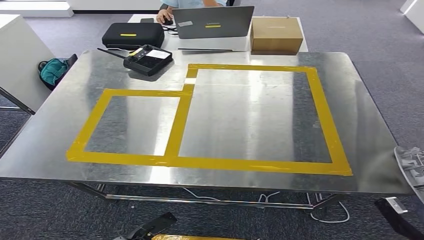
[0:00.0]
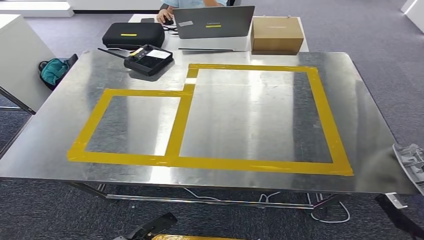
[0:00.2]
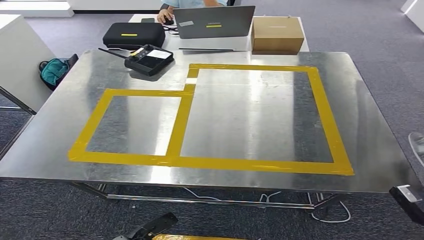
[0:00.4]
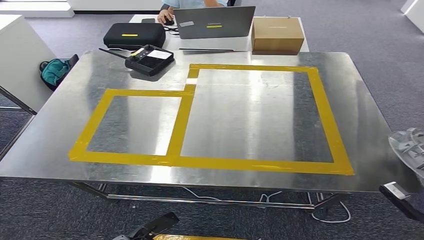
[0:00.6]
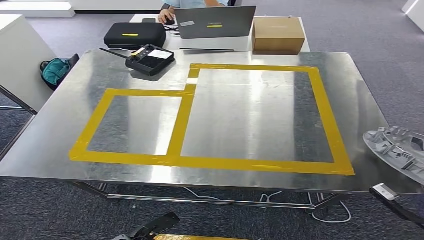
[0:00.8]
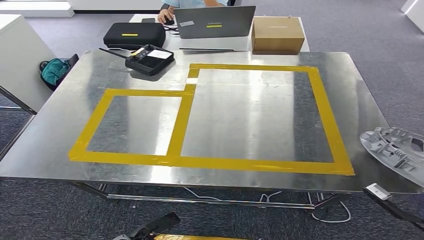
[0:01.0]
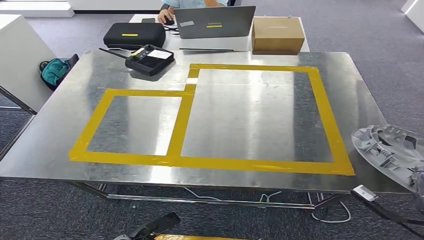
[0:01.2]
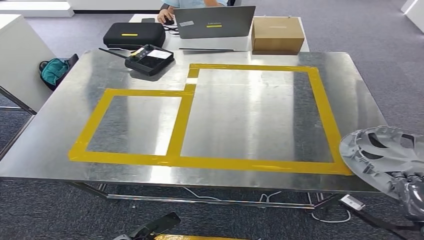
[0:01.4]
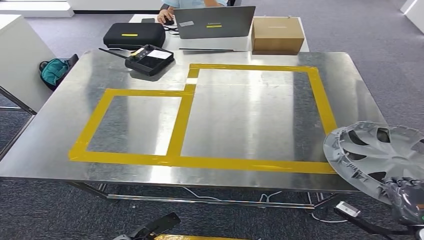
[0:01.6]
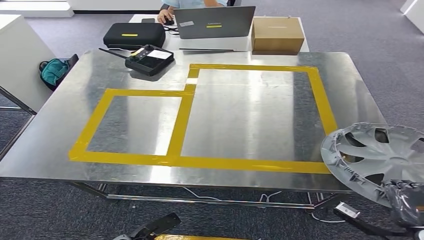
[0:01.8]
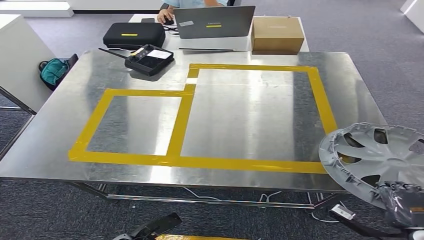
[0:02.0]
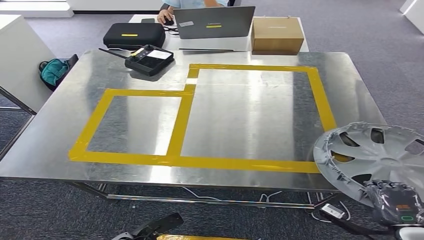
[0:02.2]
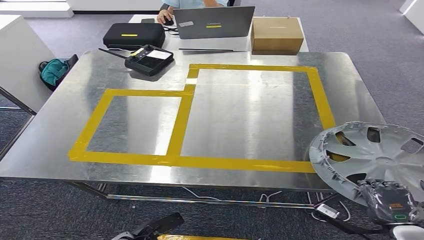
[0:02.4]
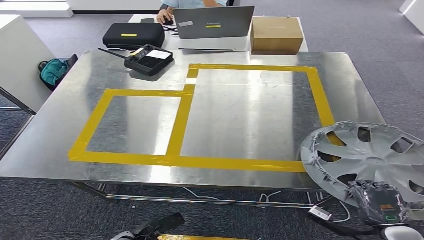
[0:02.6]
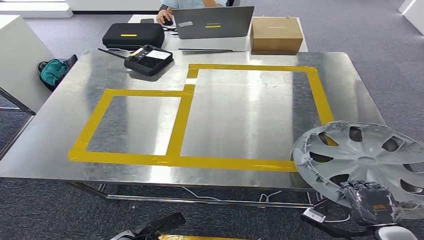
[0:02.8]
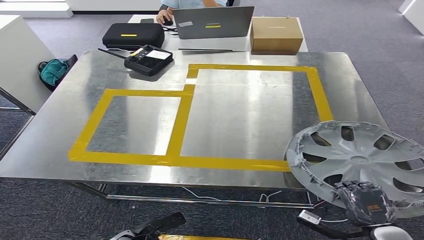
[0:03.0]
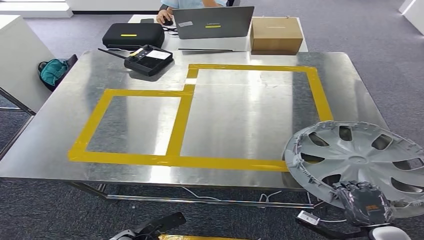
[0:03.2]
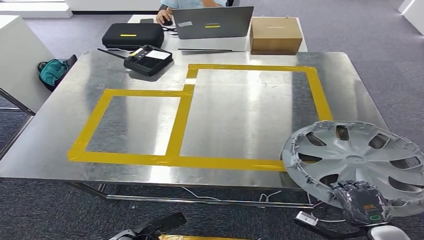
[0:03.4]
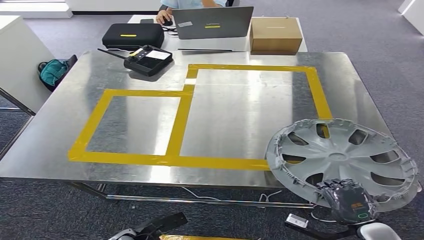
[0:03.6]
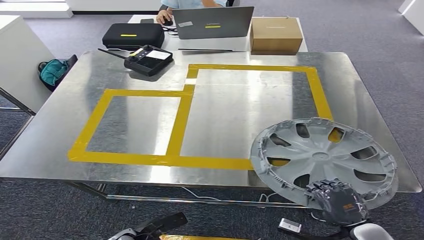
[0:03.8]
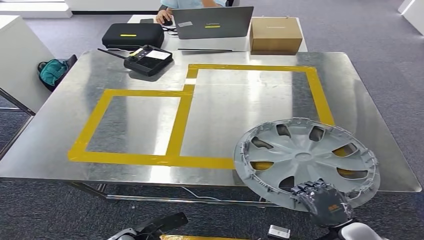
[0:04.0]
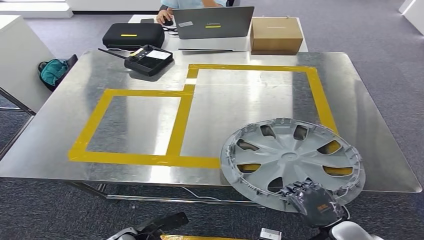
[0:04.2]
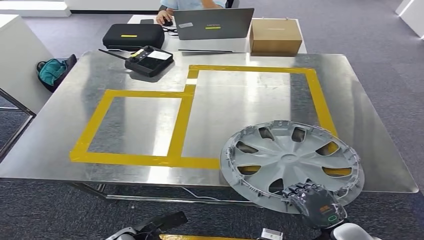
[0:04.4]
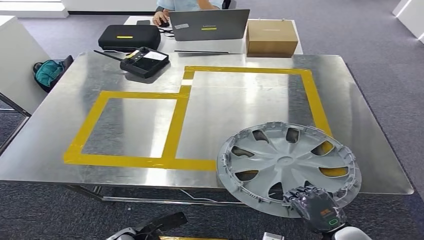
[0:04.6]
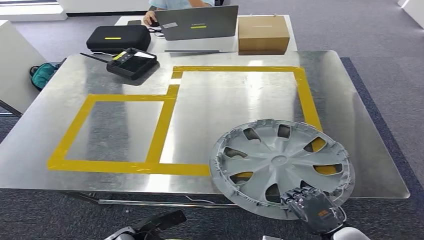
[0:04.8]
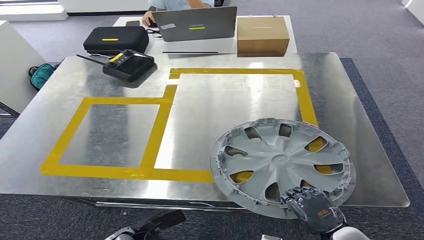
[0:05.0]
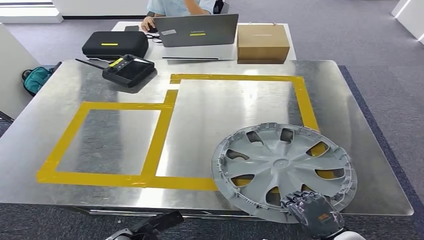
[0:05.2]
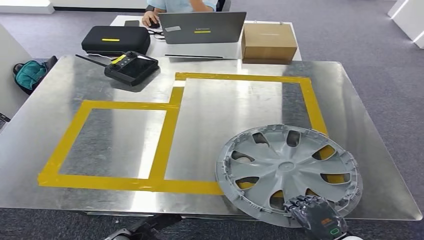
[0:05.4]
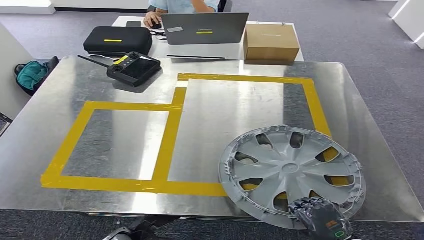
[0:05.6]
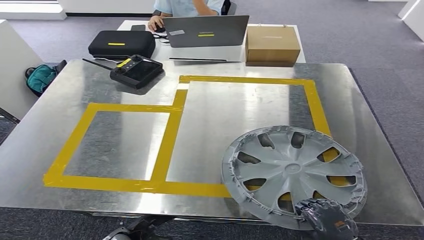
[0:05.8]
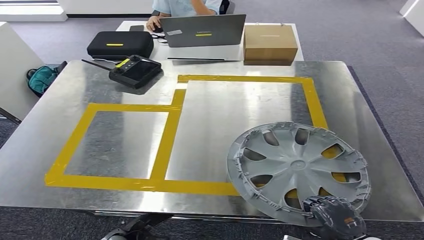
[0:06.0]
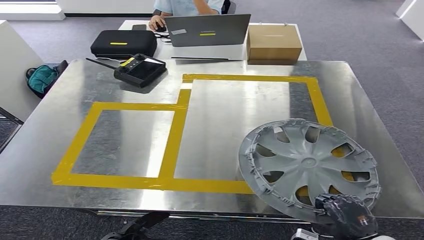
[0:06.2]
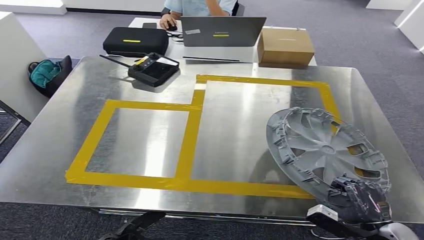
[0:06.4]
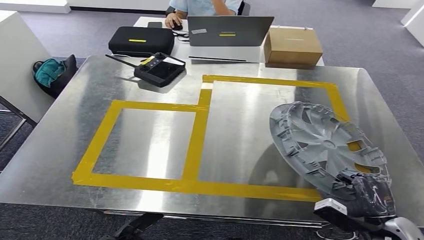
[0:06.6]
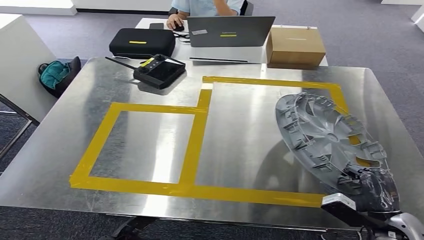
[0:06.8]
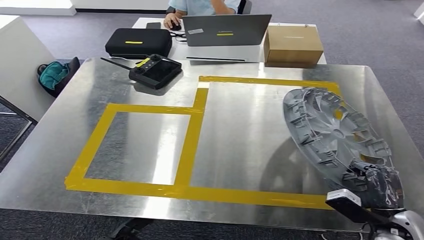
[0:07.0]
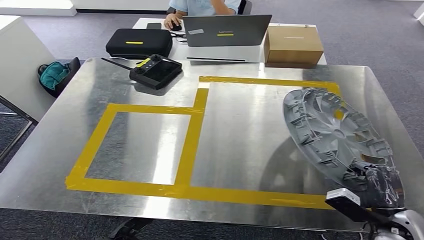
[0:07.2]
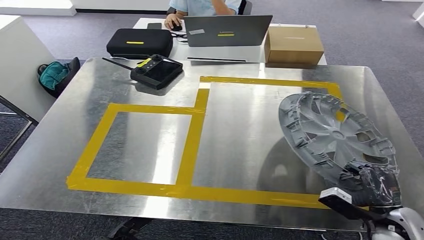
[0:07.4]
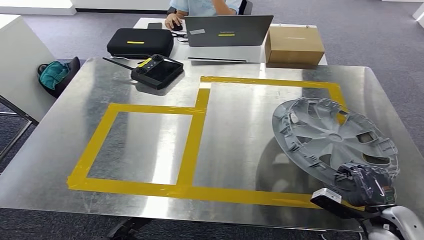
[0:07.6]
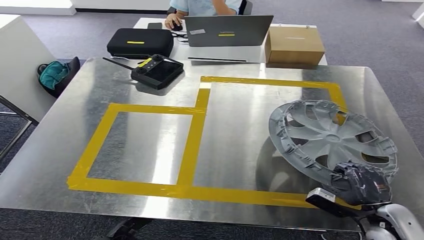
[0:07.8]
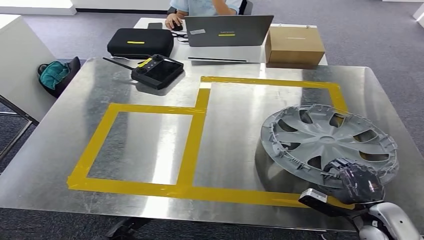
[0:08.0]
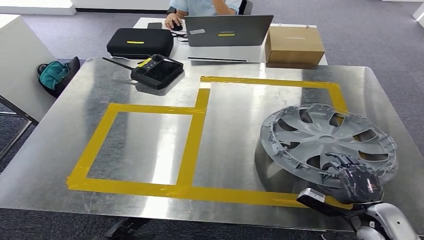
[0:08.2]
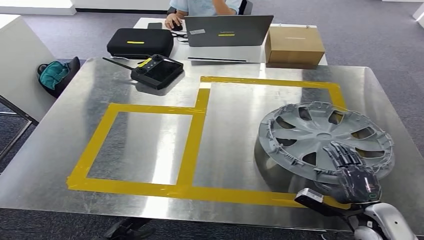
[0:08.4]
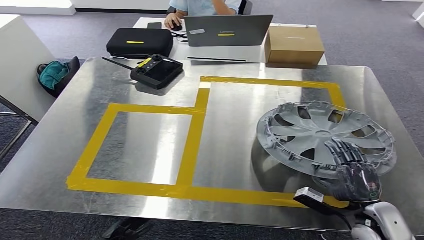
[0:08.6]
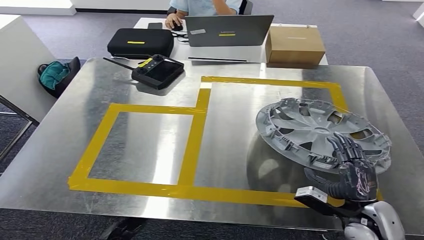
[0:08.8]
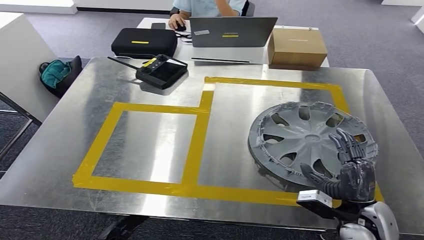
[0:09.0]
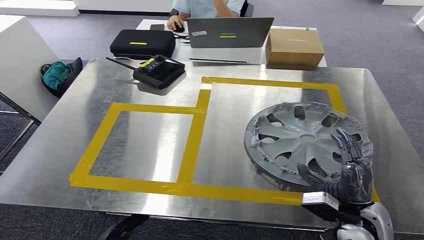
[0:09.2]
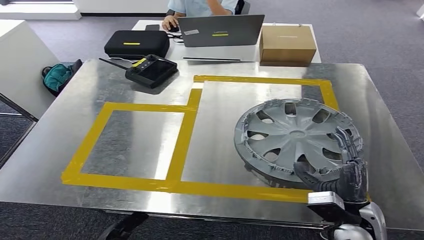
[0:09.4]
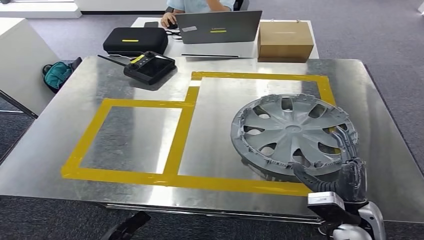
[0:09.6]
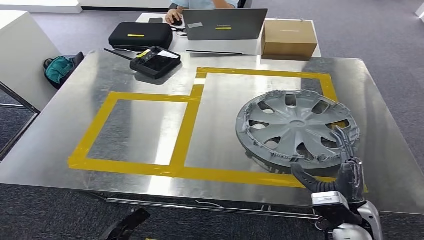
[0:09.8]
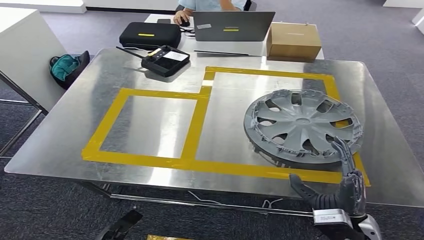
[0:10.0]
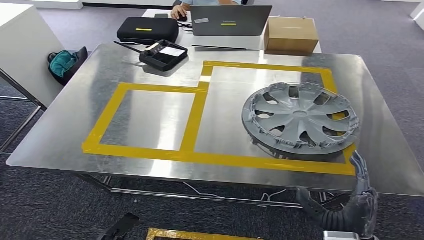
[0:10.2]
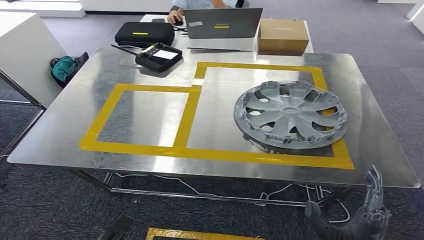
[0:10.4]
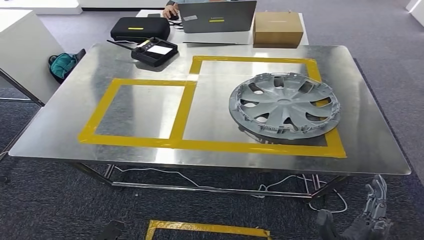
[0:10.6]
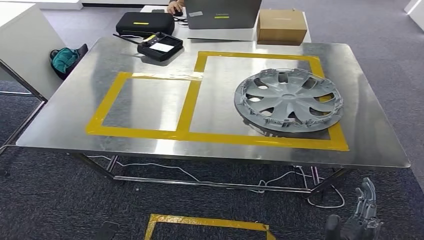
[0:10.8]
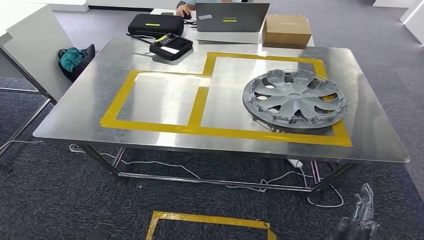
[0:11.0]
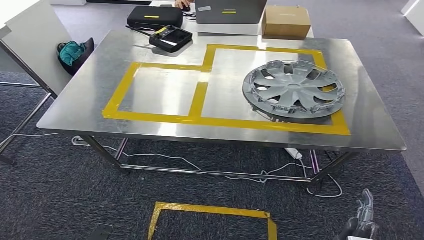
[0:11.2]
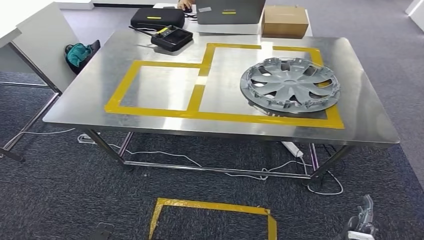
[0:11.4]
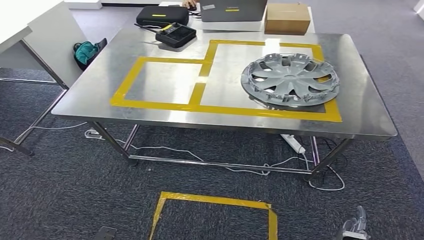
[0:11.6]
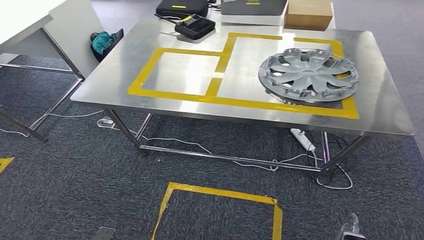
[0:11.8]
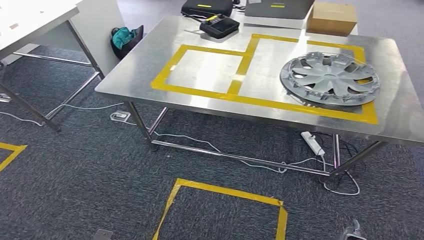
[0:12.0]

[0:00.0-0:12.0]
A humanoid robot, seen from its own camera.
Step, 0:00.0 to 0:10.4: Insert the small component into the corresponding slot on the workbench.
0:01.6 to 0:03.0: The right hand goes roughly 5 cm to the left.
0:03.0 to 0:04.4: The right hand shifts about 5 cm to the left.

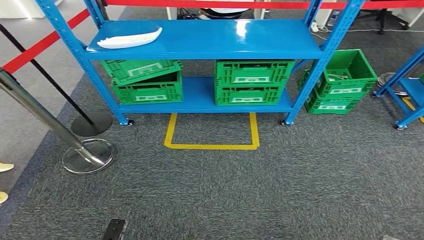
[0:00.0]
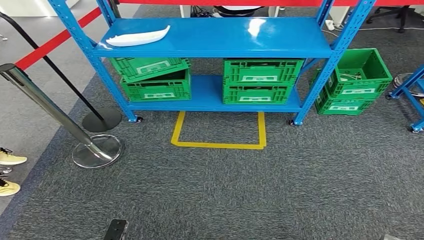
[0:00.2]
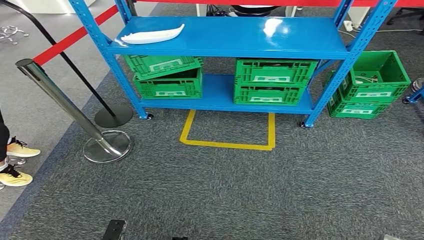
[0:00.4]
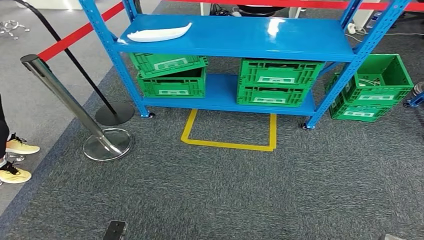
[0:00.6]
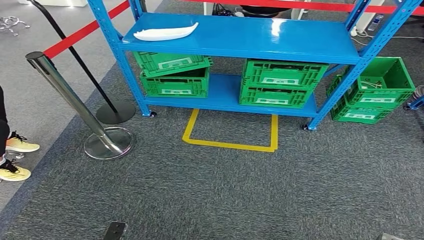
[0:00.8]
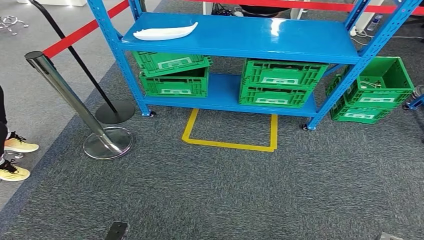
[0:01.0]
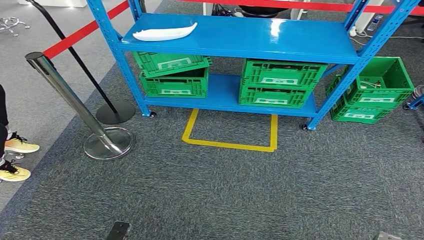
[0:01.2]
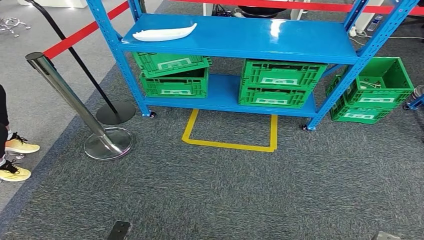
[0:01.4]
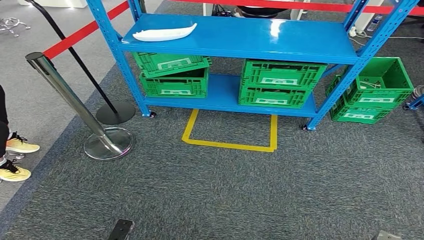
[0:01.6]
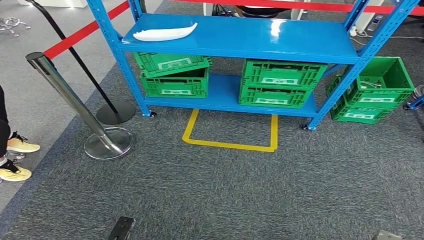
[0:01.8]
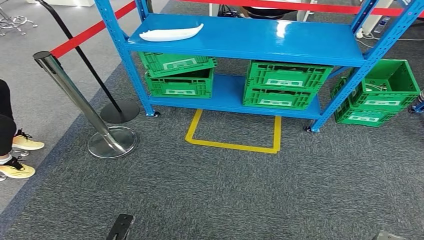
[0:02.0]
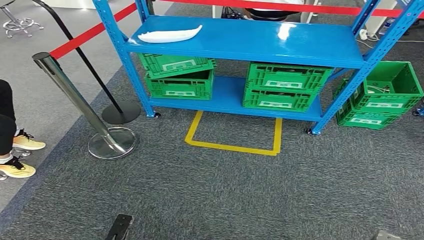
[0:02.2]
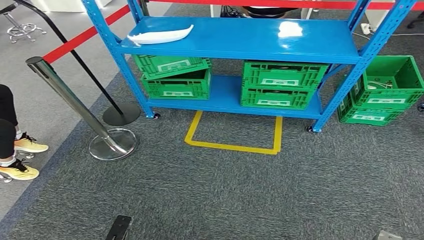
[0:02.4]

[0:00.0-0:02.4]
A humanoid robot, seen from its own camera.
Step, 0:00.0 to 0:02.4: Return to the initial position at the workbench.
0:01.2 to 0:02.4: The hands stay close to where they were, moving slightly.
